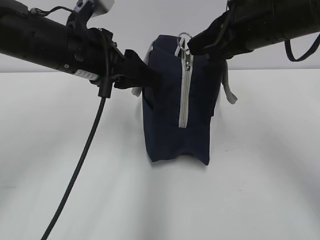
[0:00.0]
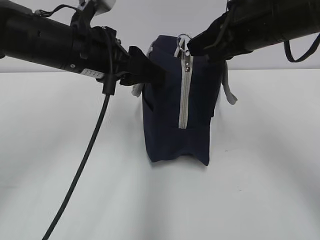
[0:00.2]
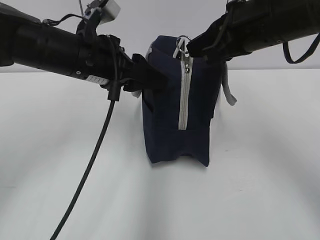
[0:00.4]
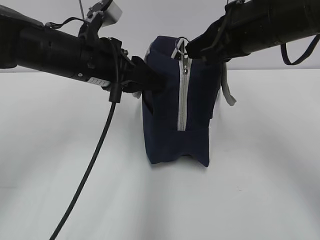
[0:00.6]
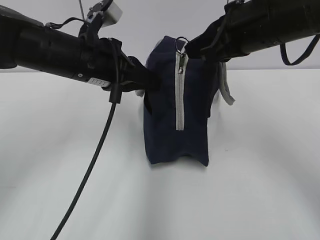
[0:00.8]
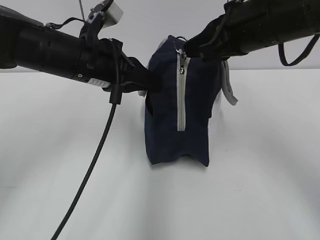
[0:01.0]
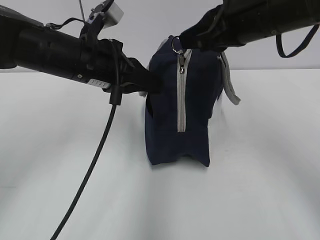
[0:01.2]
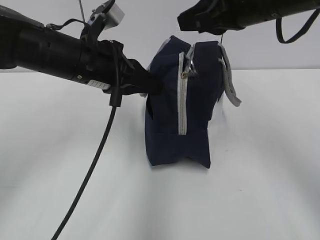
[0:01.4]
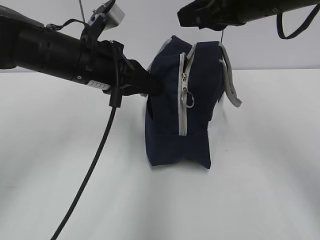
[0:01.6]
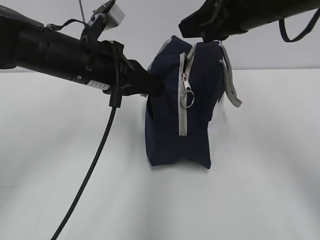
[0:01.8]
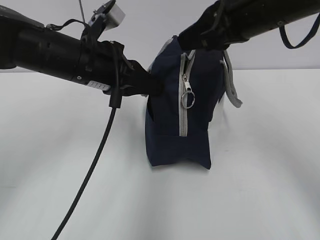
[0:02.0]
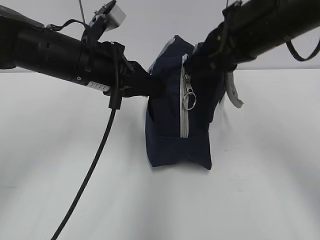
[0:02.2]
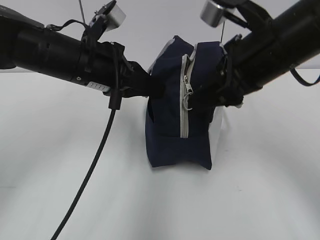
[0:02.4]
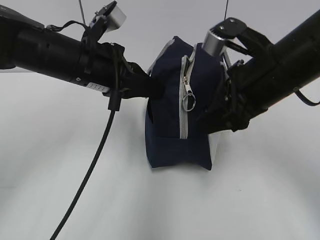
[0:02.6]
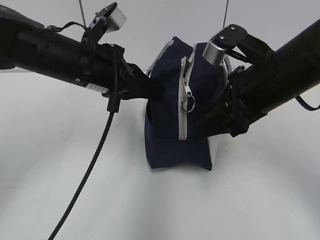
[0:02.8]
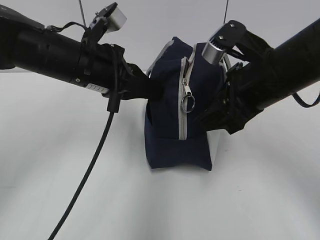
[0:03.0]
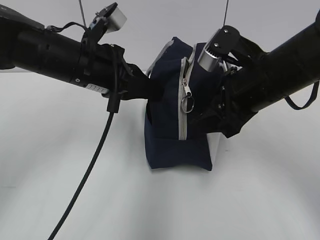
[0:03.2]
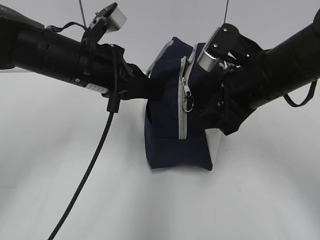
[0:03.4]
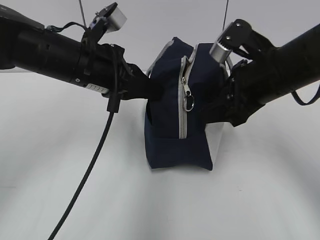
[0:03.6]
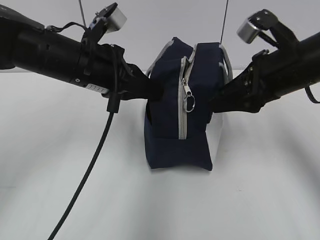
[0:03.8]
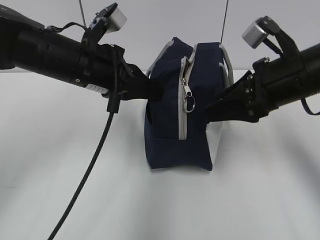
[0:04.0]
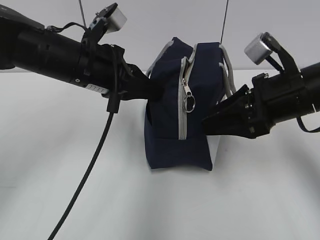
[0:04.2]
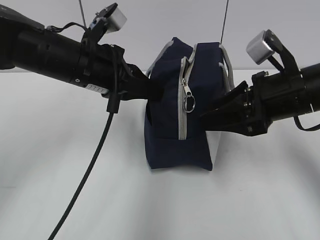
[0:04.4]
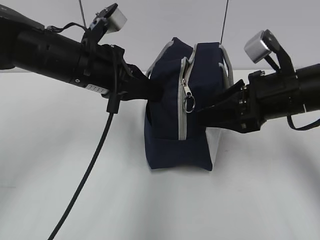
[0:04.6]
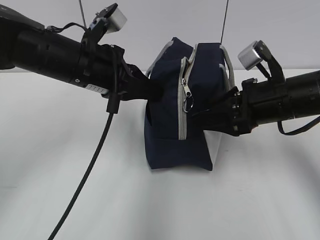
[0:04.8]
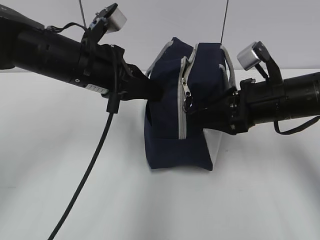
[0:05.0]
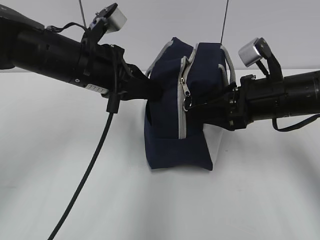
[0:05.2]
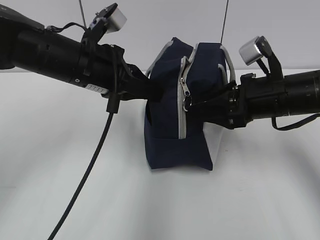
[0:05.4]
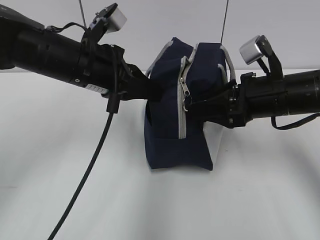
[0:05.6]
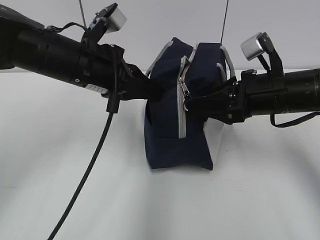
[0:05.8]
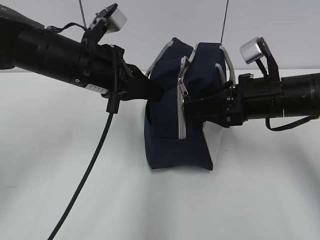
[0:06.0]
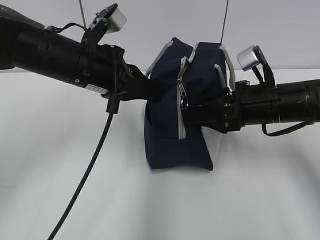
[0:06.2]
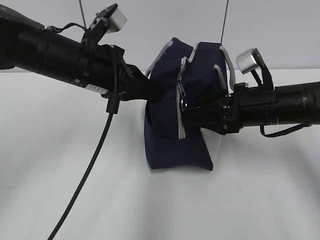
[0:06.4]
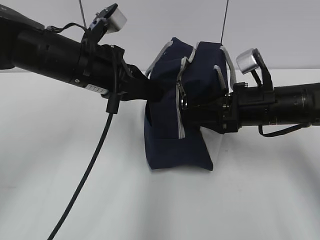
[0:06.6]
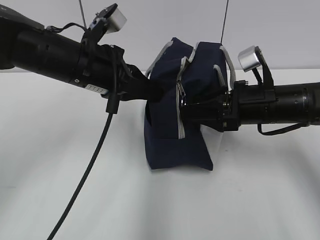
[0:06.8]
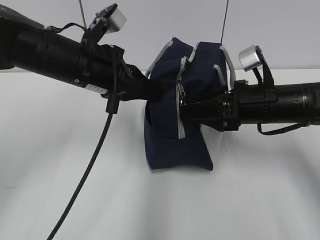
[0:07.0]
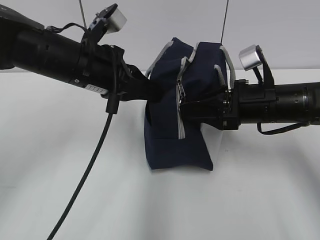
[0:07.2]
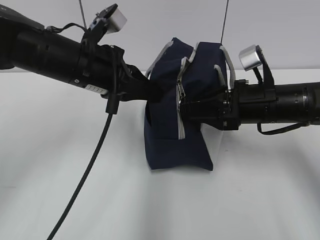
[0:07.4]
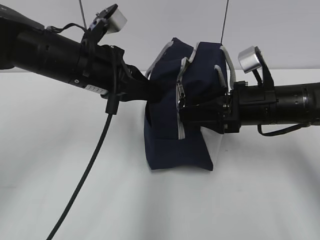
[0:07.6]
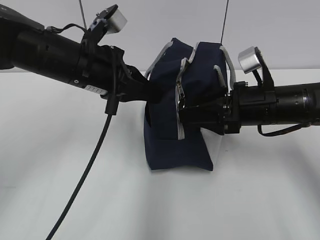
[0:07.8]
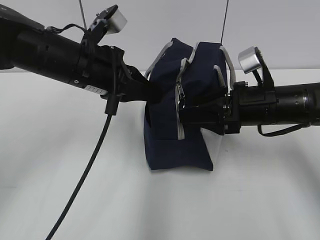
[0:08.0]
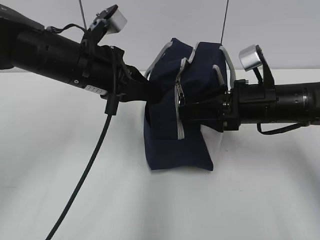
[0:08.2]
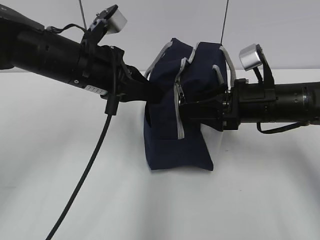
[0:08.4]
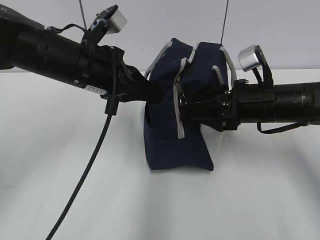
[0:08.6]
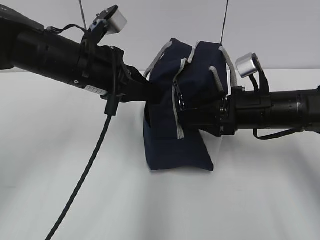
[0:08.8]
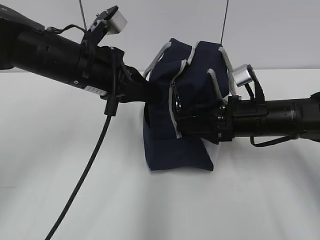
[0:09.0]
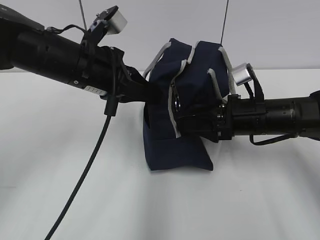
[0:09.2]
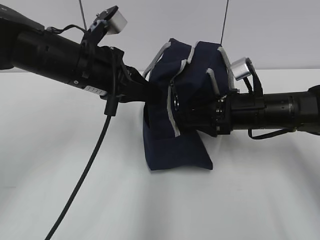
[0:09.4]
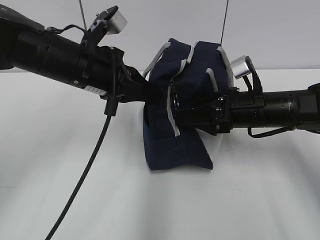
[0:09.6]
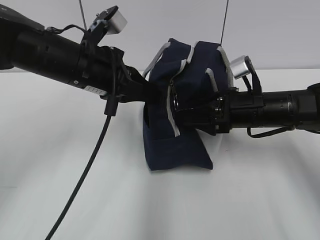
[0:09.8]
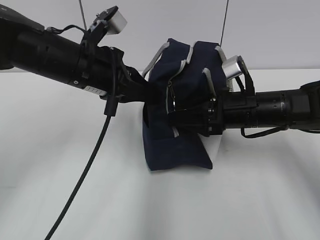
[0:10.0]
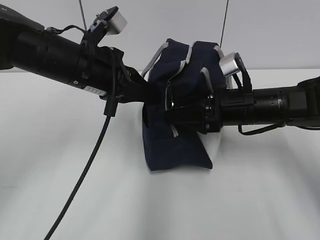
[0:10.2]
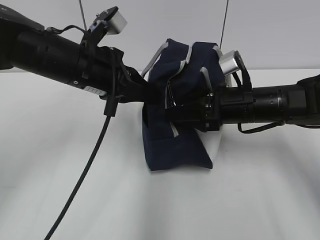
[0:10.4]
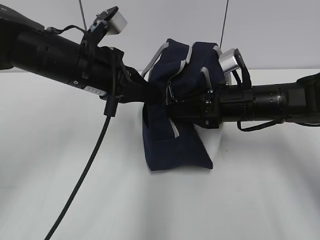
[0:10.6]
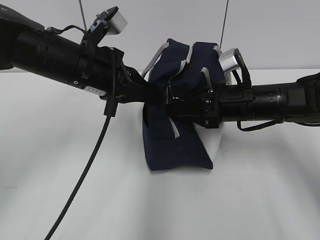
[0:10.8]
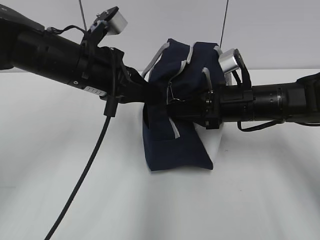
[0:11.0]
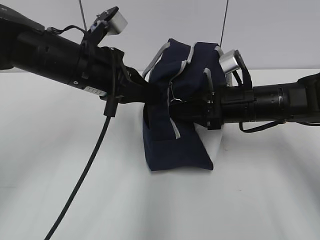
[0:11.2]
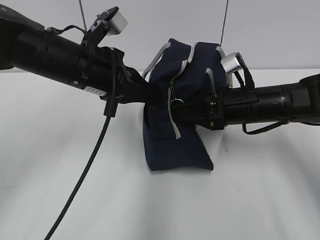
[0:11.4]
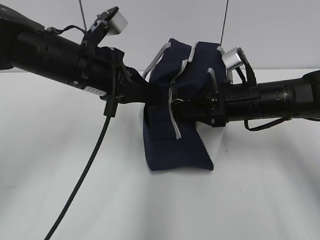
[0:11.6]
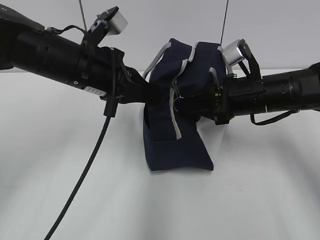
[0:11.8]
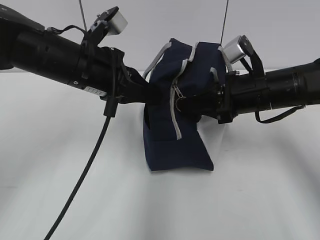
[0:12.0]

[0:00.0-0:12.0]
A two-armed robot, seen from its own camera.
0:00.0 to 0:01.6: The left gripper closes up.
0:01.6 to 0:03.0: The right gripper is displaced downward by some 10 cm, and opens up.
0:04.4 to 0:06.0: There are only small adjustments of the grippers.
0:06.0 to 0:10.4: The grippers make only small movements.
0:10.4 to 0:12.0: The right gripper closes up.

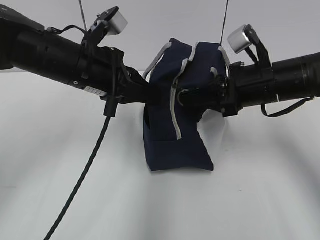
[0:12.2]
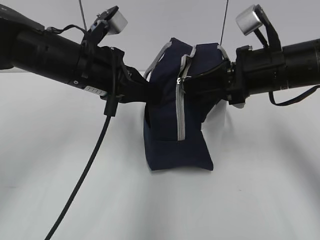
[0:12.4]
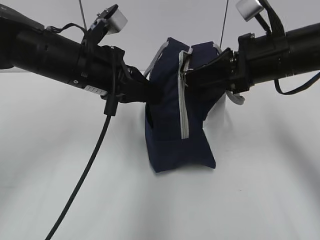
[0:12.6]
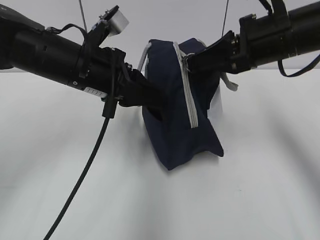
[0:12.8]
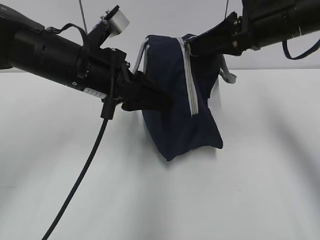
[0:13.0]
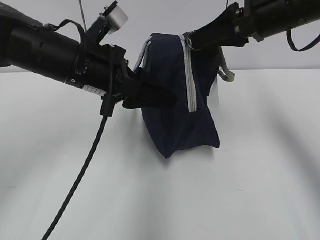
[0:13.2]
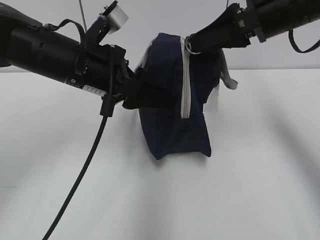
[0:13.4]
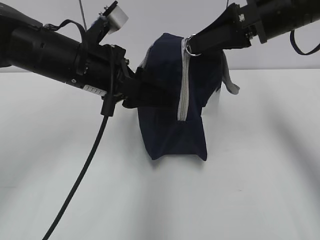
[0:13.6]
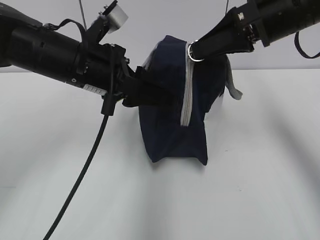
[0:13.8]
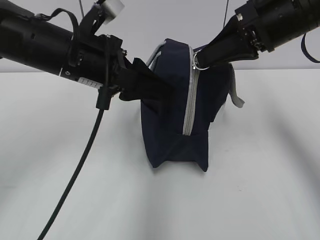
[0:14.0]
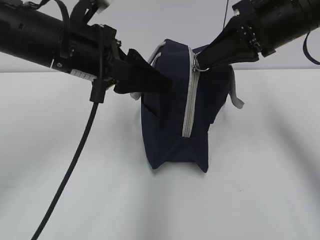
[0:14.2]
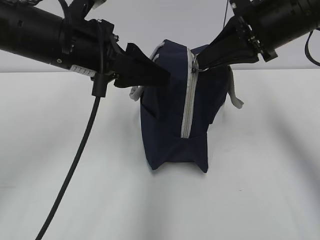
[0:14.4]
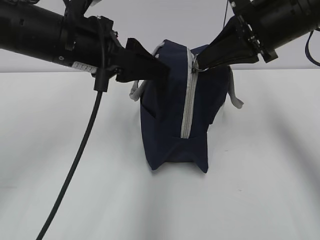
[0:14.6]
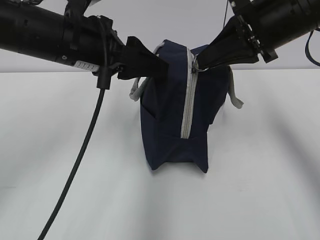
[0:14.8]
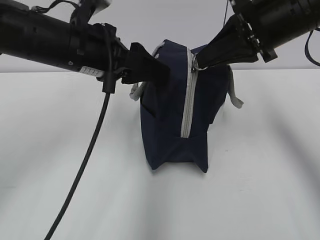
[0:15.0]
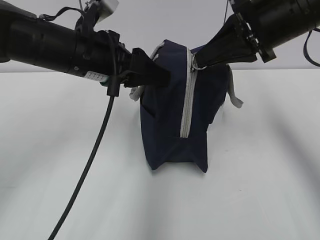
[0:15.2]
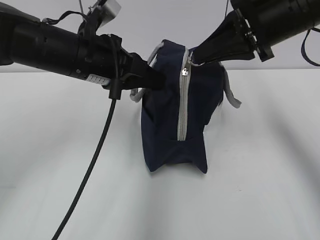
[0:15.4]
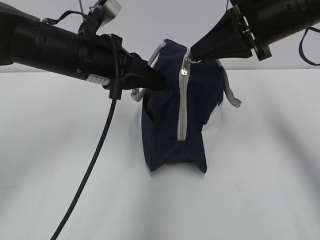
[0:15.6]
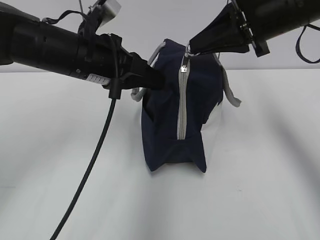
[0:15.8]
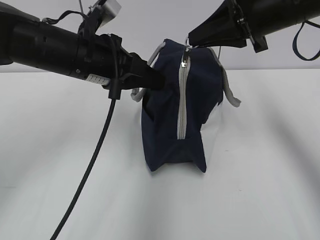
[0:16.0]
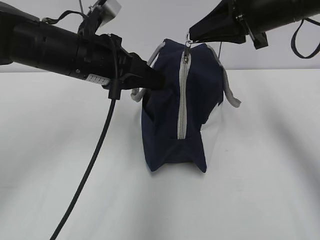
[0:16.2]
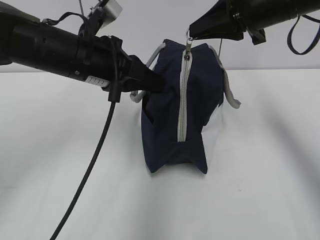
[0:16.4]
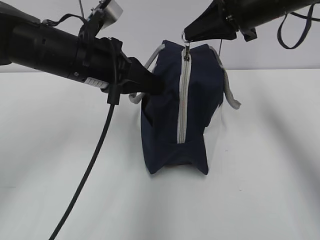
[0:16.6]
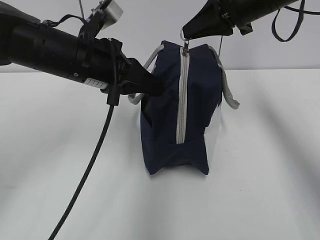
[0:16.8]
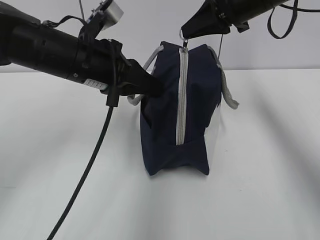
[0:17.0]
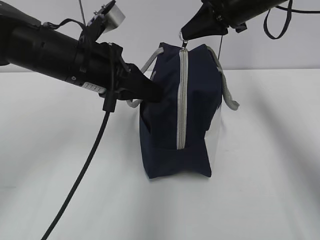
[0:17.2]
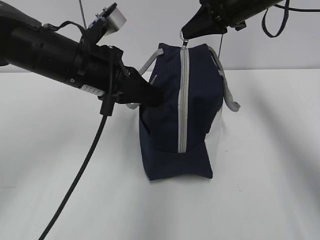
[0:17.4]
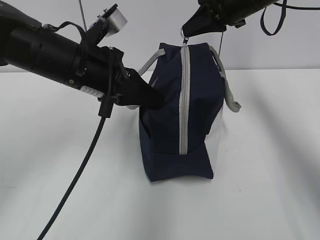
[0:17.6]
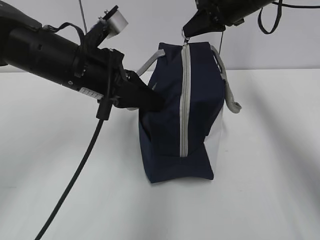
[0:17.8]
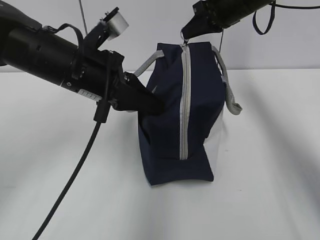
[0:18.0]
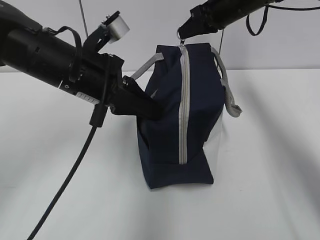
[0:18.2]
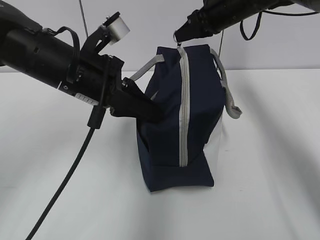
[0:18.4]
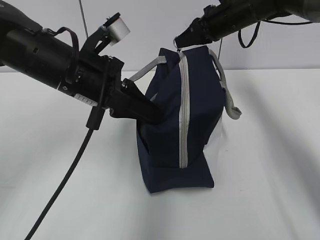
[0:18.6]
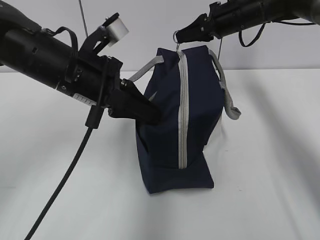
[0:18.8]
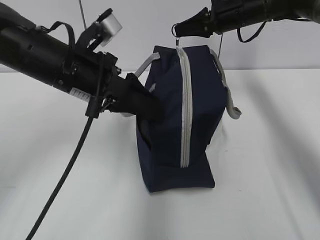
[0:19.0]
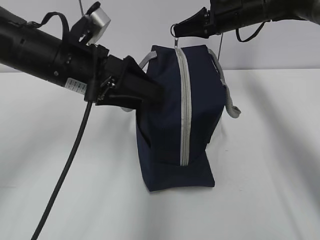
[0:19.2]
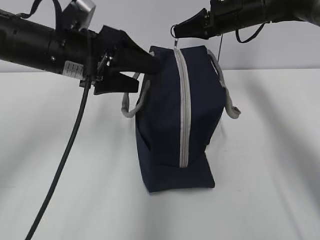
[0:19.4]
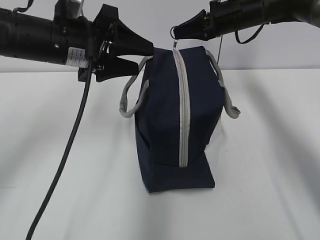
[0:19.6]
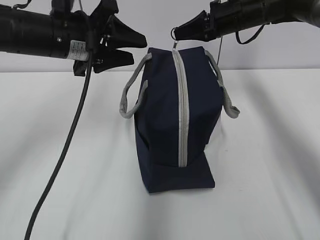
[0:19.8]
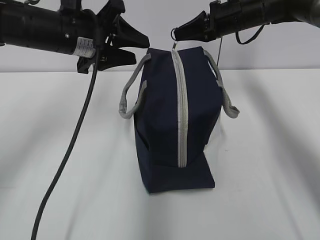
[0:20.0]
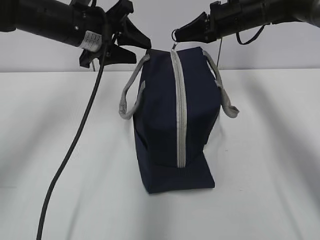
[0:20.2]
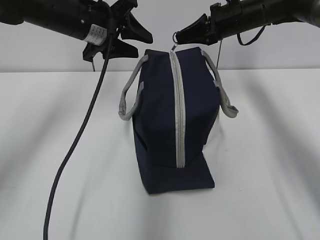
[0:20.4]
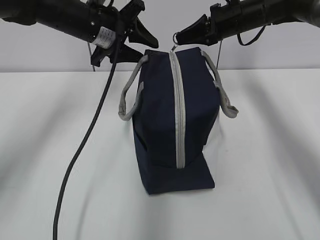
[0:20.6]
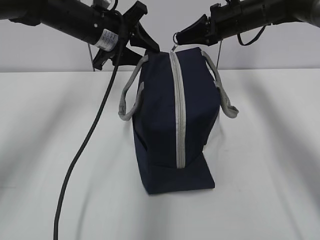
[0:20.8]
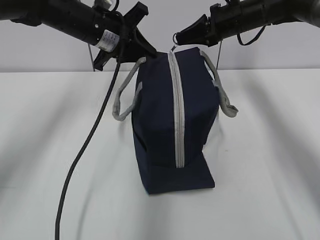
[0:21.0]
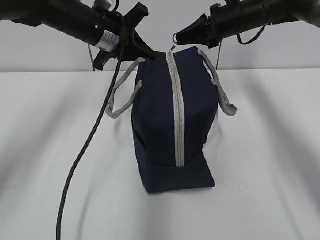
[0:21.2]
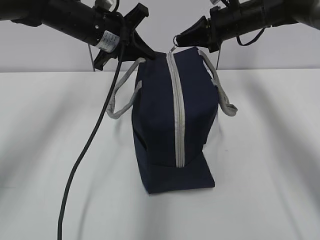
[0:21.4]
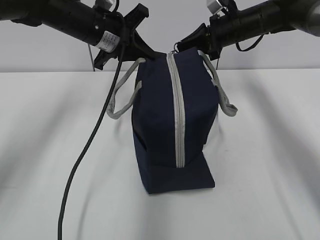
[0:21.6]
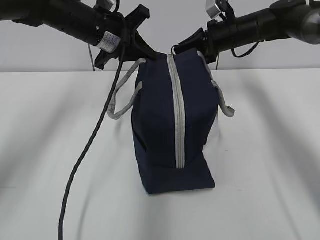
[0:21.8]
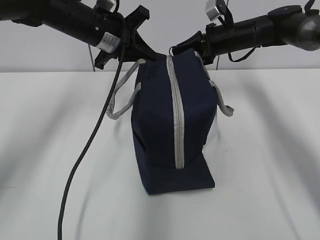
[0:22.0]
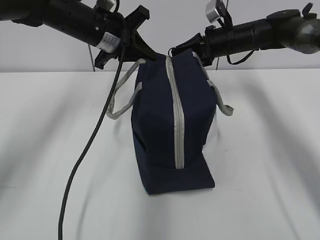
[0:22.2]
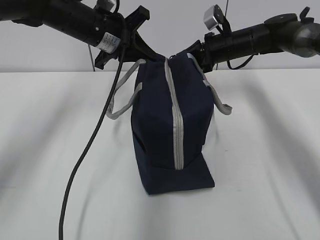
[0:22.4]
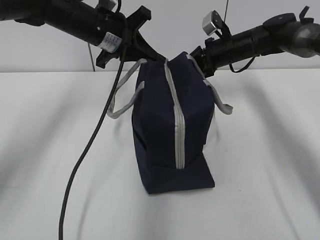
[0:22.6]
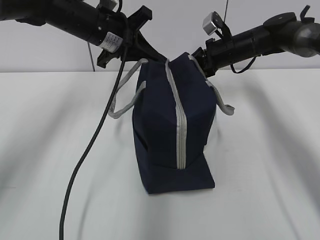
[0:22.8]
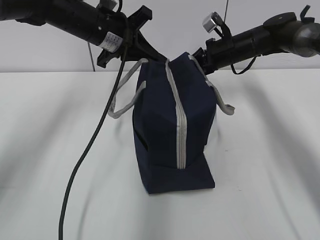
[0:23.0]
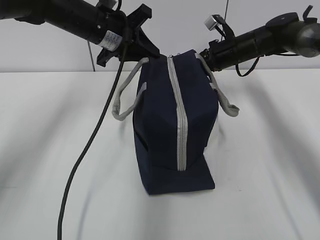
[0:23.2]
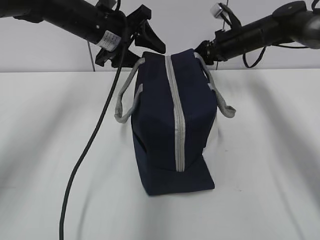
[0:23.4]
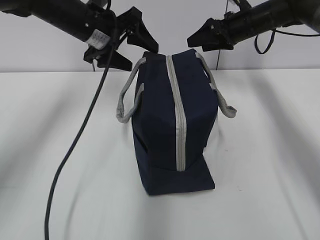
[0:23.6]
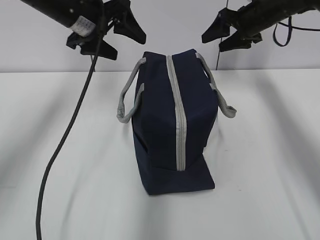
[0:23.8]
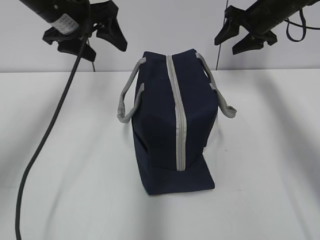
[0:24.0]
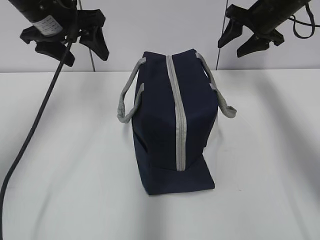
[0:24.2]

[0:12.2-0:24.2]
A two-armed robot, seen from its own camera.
Step, 0:12.2 to 0:23.0: Pull the zipper with your right hand.
0:12.2 to 0:13.8: The right gripper moves upward, roughly 10 cm; the left gripper opens.
0:15.2 to 0:16.6: The left gripper closes; the right gripper heads forward, covering some 5 cm.
0:16.6 to 0:18.2: The right gripper moves forward, some 10 cm.
0:18.2 to 0:19.8: The left gripper shifts some 5 cm forward, and opens.
0:19.8 to 0:21.2: The left gripper goes approximately 10 cm forward, and closes up.
0:21.2 to 0:22.6: The right gripper moves downward, some 5 cm.
0:22.6 to 0:24.2: The right gripper heads upward and to the right, covering approximately 10 cm, and opens; the left gripper is displaced to the left and upward by approximately 10 cm, and opens up.
